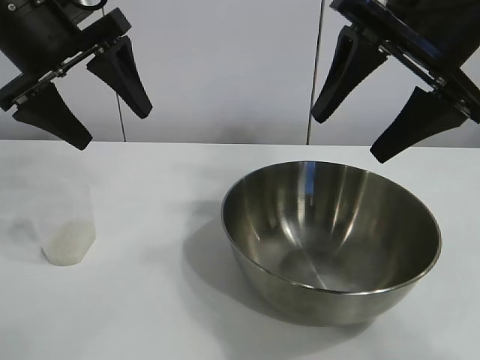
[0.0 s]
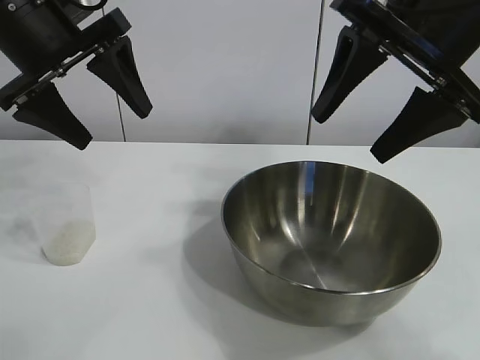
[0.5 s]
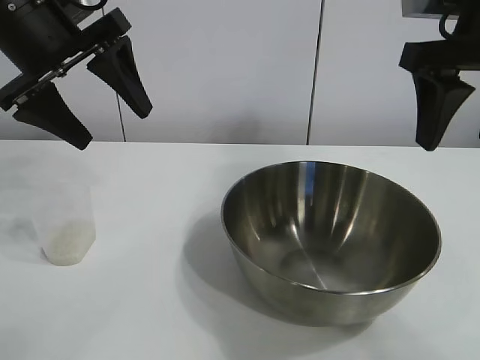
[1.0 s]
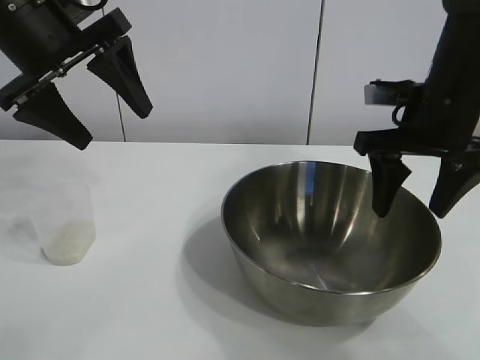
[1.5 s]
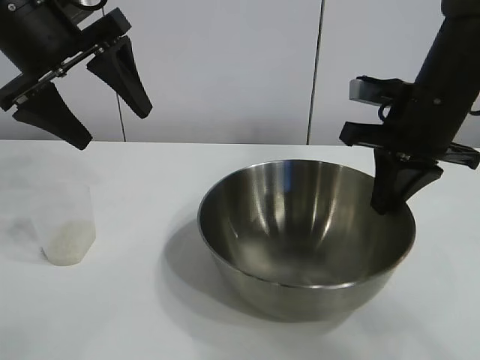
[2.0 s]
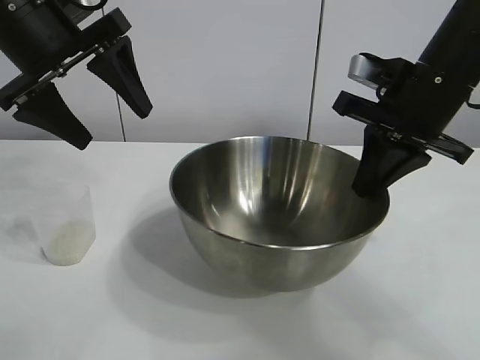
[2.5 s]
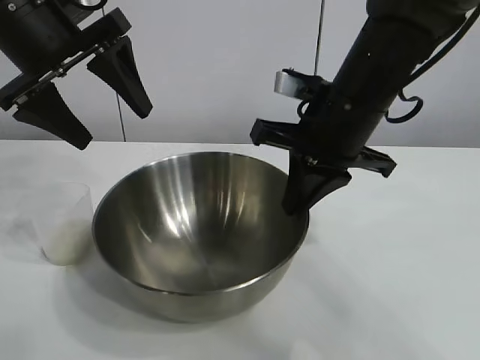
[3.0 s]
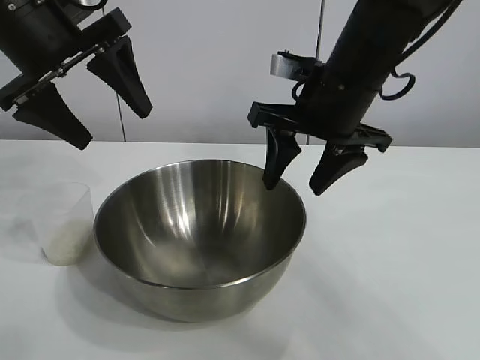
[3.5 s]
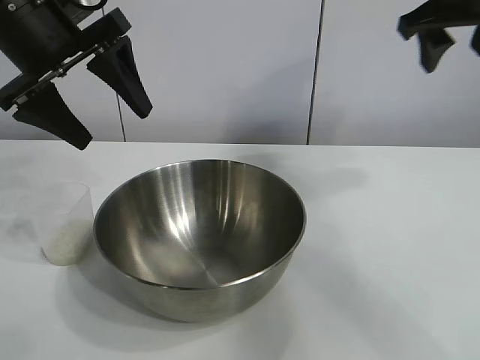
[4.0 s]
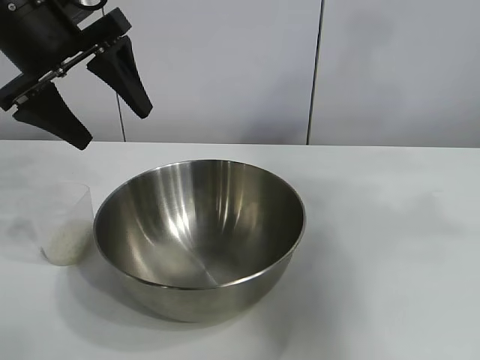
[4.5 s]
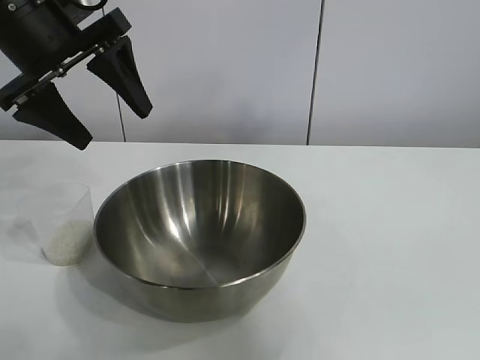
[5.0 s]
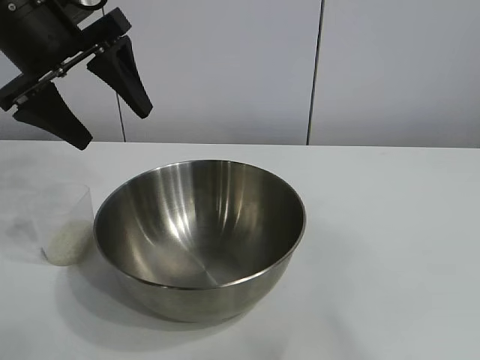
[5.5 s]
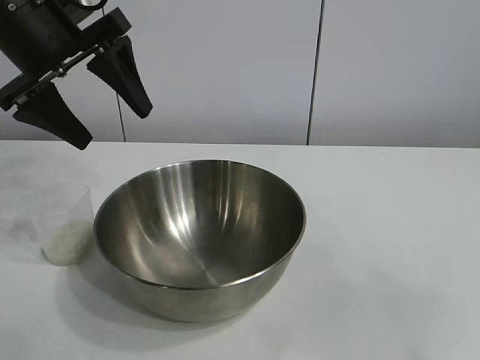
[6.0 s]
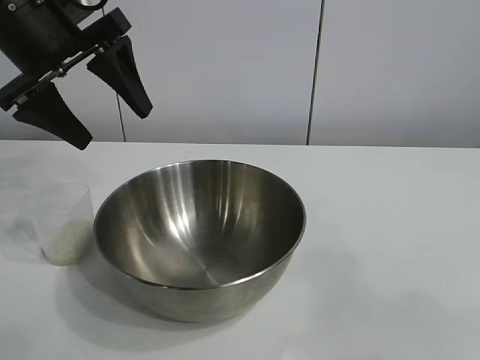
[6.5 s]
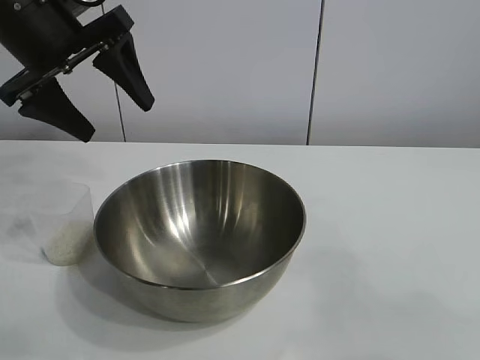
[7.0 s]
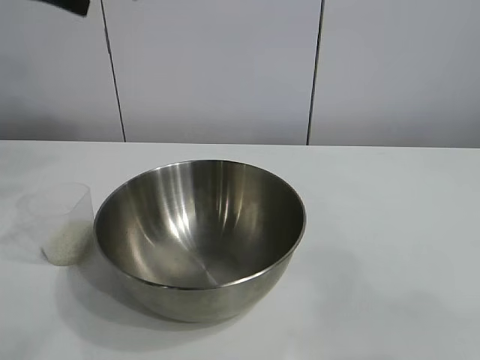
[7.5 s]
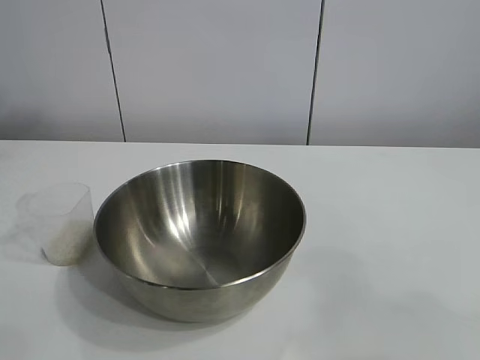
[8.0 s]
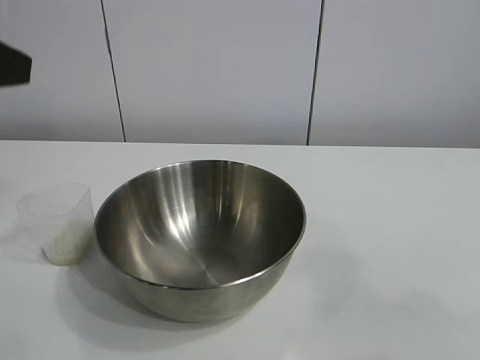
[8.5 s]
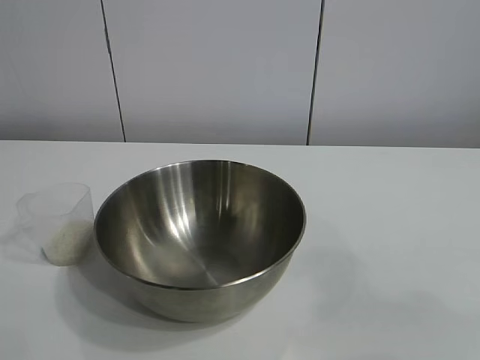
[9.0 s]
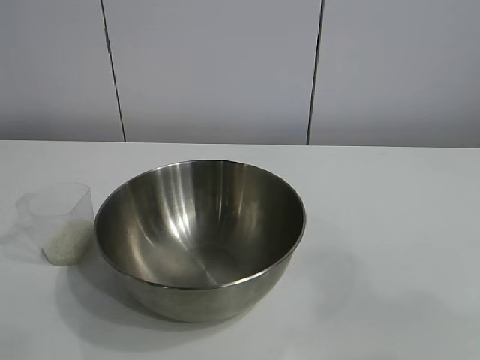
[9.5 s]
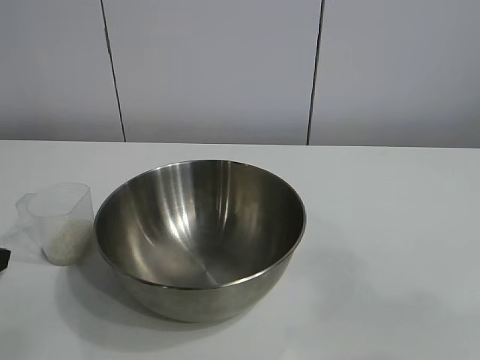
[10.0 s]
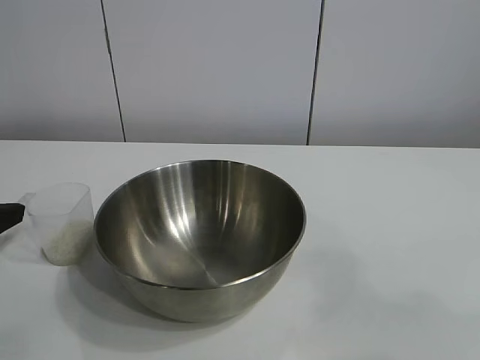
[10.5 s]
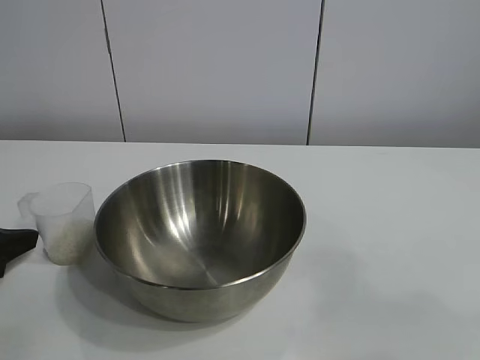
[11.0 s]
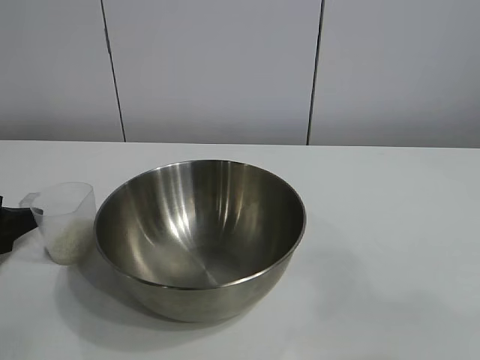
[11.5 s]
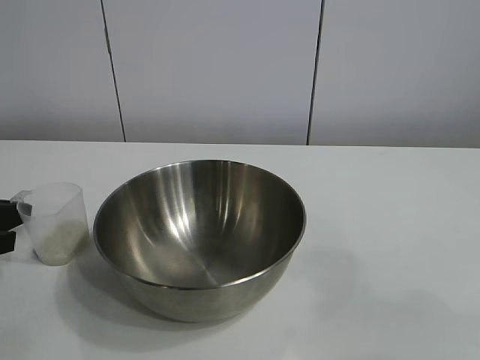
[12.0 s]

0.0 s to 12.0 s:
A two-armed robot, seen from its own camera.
Task of the whole recording: the right gripper grasp the rice container and place it in the center of the table, the left gripper grasp the rice scoop and pour the rice into the rice container.
Step, 1.0 to 3.0 s: Move the bowl in the center of view with right gripper.

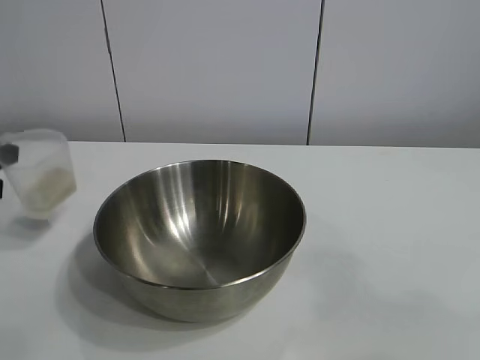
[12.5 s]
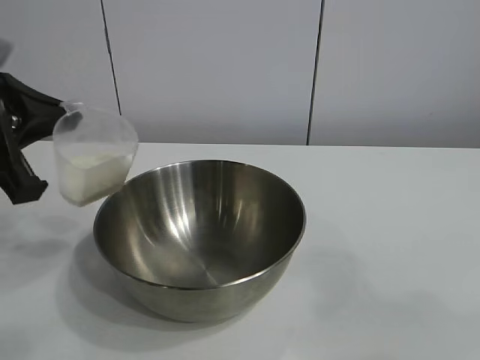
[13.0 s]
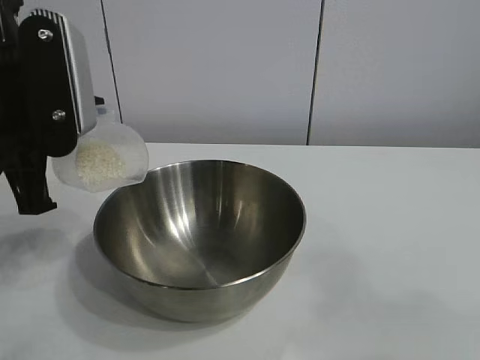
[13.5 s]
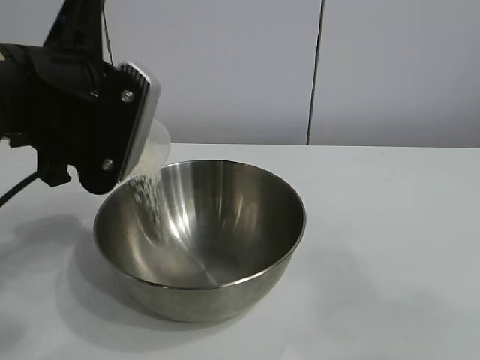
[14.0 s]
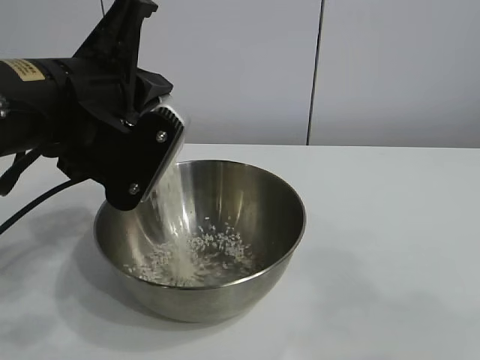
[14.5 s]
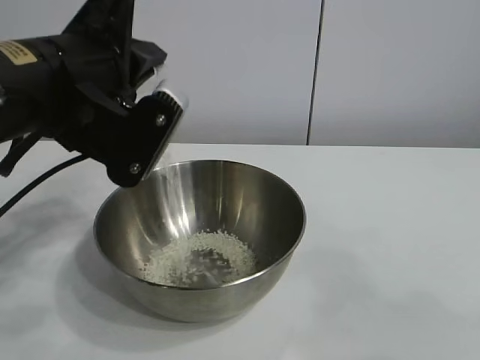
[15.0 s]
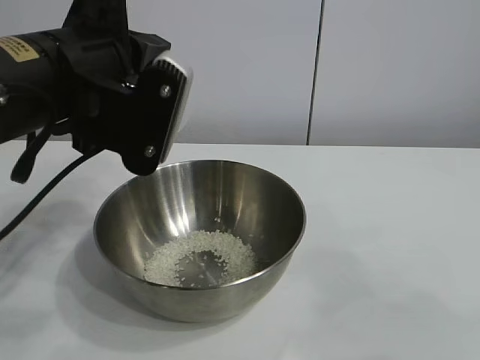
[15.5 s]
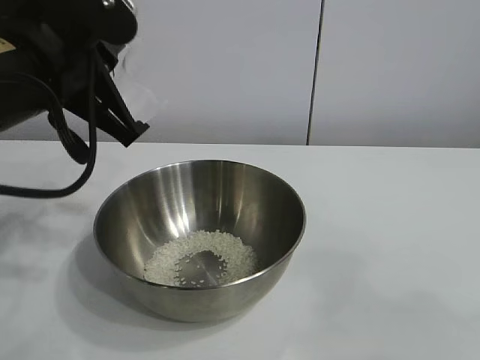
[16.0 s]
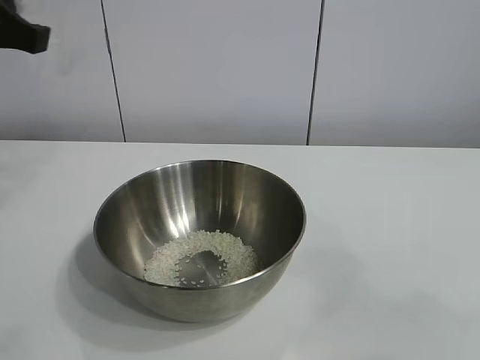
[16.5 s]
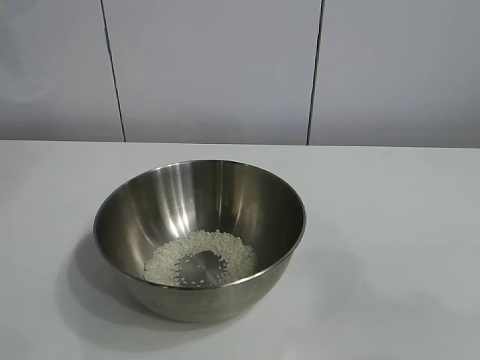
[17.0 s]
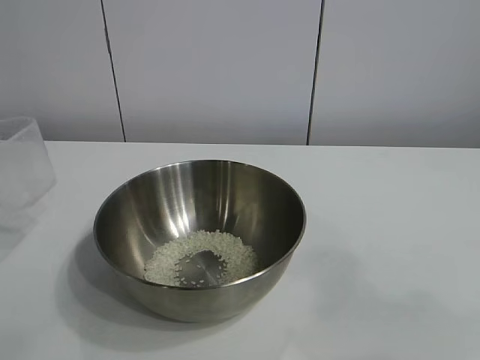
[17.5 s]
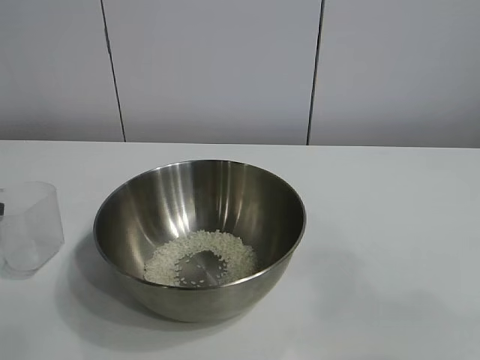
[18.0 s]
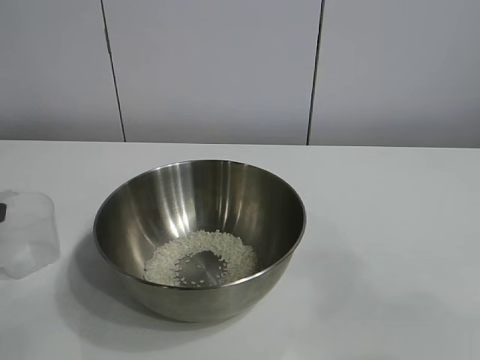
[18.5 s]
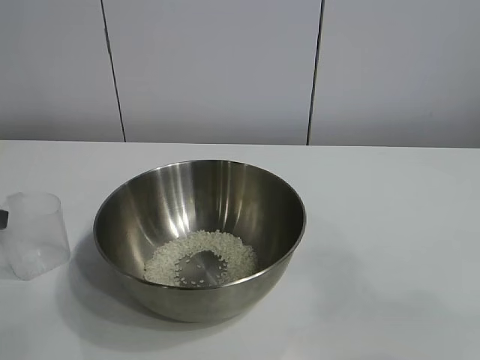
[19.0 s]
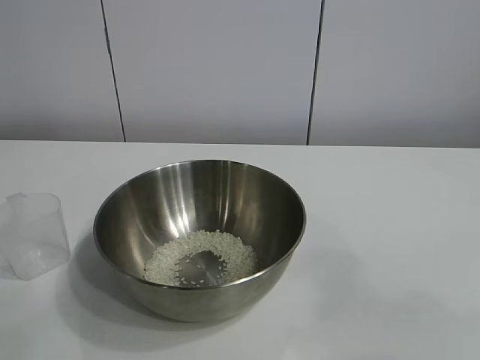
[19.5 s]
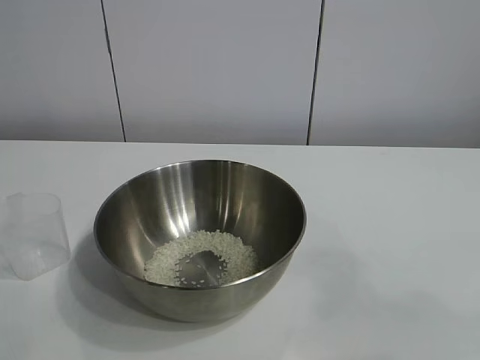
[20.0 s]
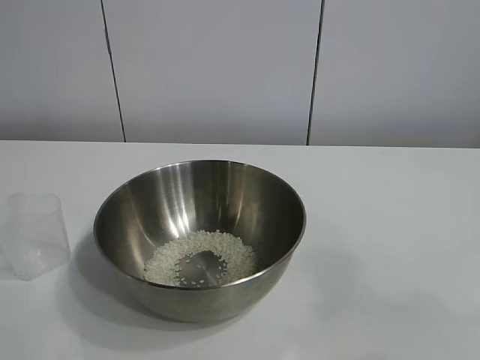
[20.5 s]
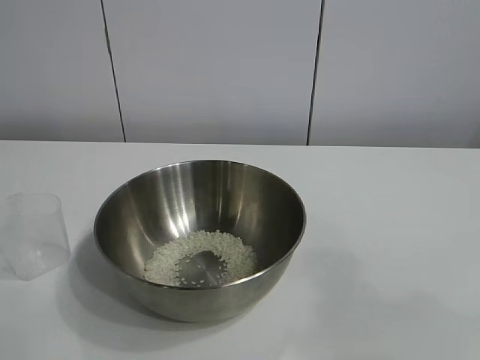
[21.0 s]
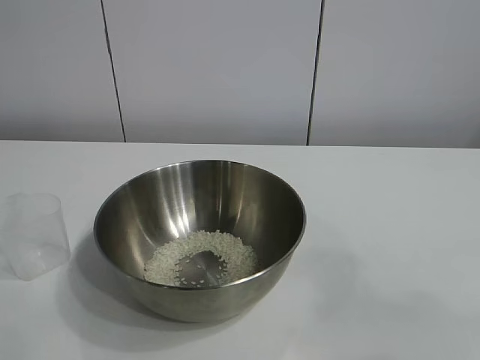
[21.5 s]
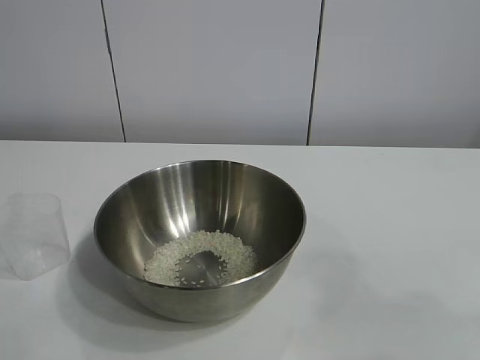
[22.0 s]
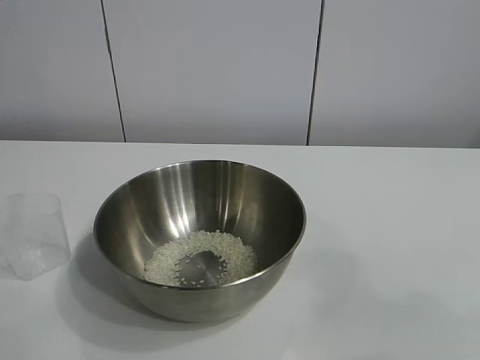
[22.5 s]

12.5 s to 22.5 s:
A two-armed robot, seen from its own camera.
Task of the whole recording: the right gripper grasp the rice container and place it in the center of the table, the left gripper grasp the rice scoop and pour the rice into the rice container.
Step, 12.5 to 15.0 s: Pour the rice from the cup into the bowl with the left gripper.
Step, 15.5 to 18.0 s: Place the cup on the table with the left gripper.
